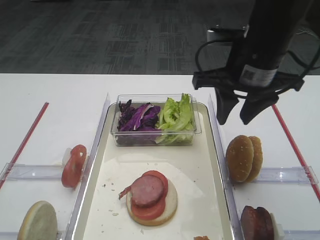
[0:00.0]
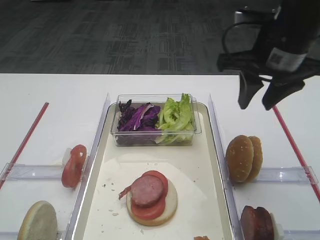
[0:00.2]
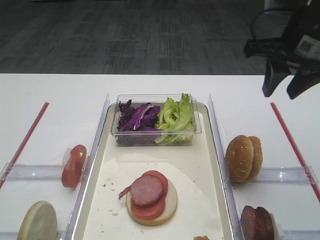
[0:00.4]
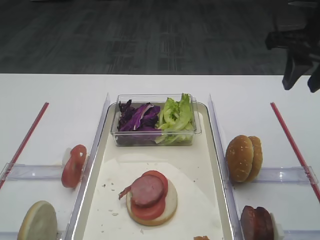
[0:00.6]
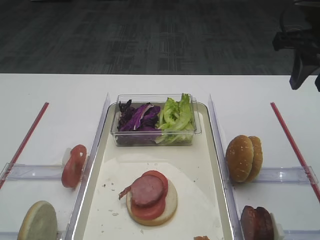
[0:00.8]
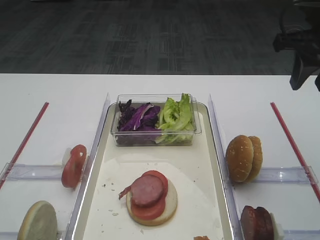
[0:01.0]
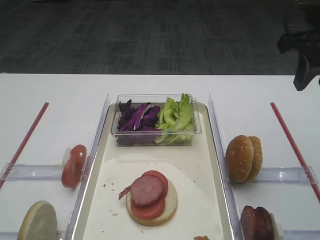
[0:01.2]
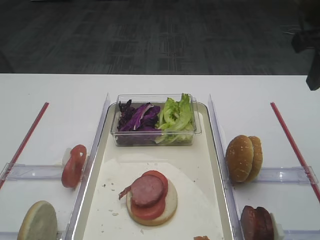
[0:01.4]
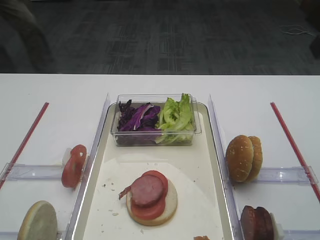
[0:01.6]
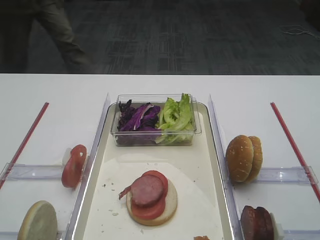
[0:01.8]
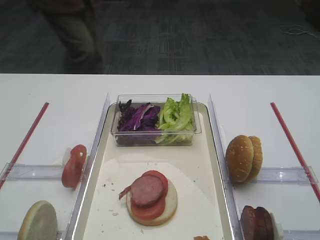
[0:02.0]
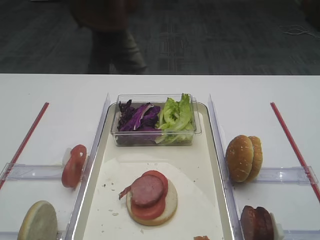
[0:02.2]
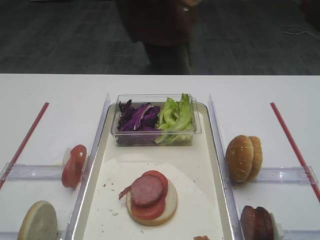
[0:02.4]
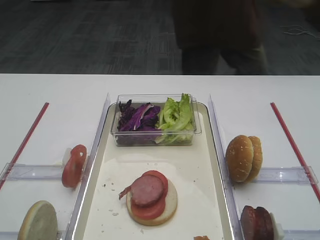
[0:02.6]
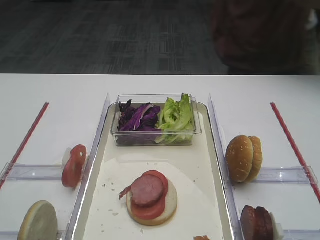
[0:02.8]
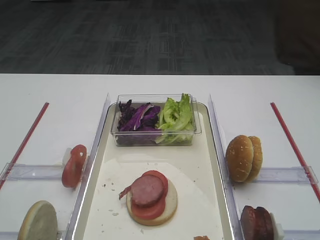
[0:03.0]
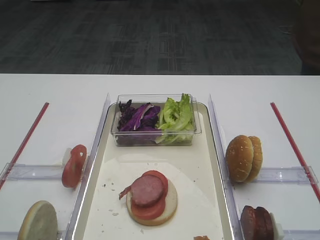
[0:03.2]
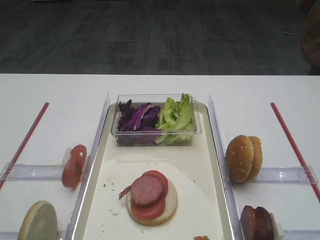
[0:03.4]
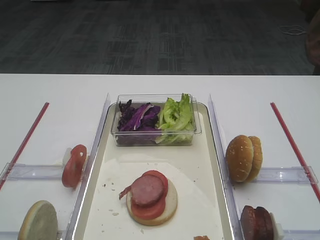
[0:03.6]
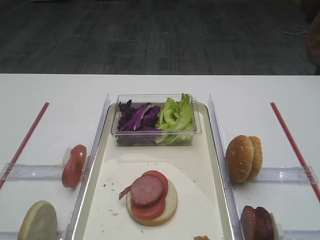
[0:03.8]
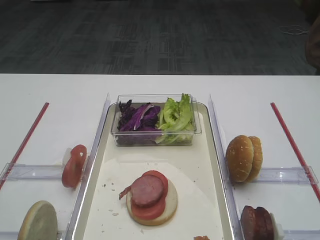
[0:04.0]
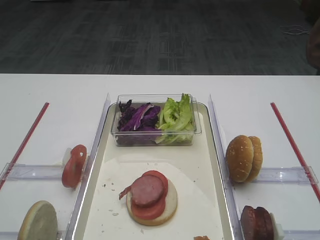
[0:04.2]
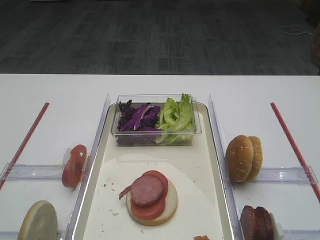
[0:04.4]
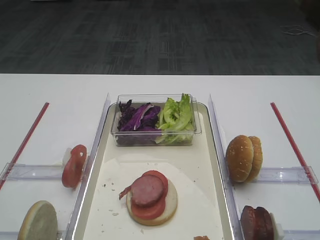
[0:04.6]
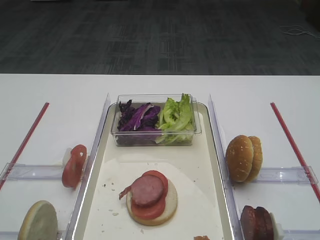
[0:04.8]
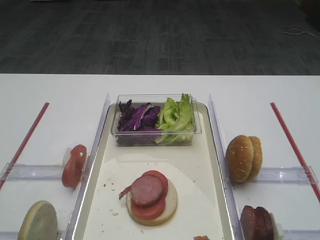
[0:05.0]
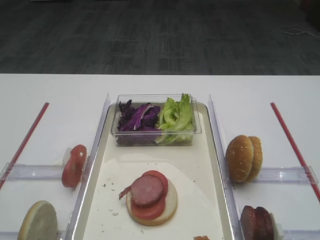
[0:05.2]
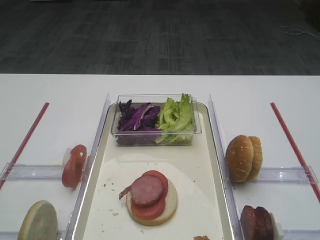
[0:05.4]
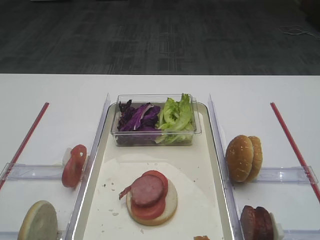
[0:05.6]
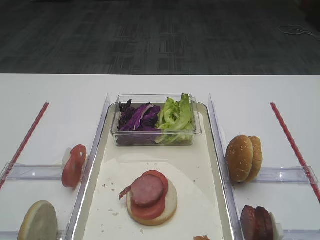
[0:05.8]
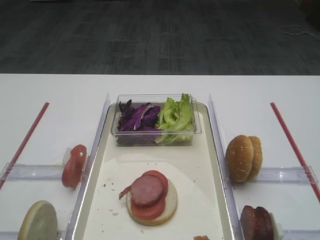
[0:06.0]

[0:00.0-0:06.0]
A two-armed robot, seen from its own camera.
0:00.0 to 0:01.6: The right gripper goes about 15 cm to the right, upward and backward.
0:01.6 to 0:03.0: The right gripper heads backward, covering about 20 cm.
0:04.4 to 0:06.0: Both grippers stay put.

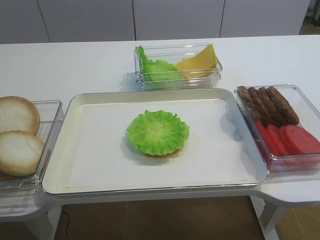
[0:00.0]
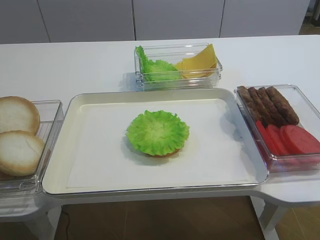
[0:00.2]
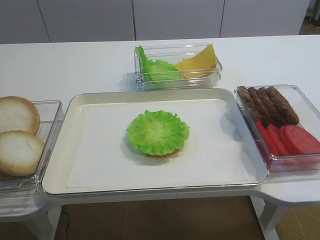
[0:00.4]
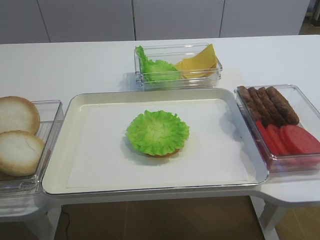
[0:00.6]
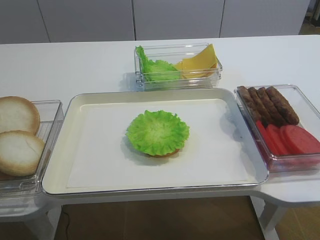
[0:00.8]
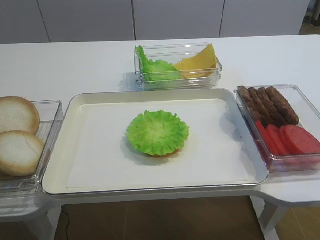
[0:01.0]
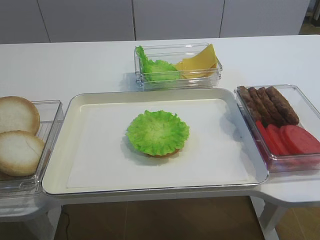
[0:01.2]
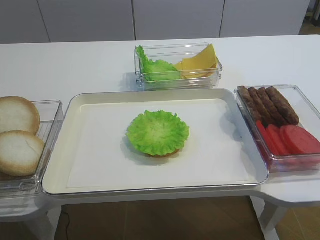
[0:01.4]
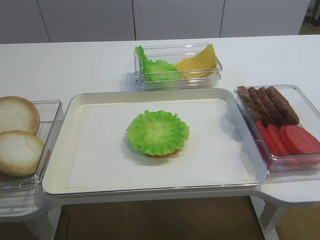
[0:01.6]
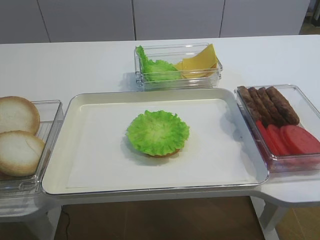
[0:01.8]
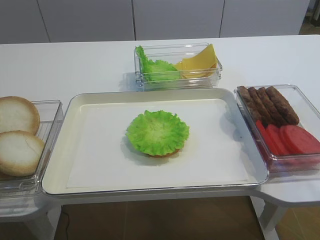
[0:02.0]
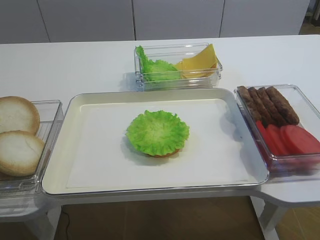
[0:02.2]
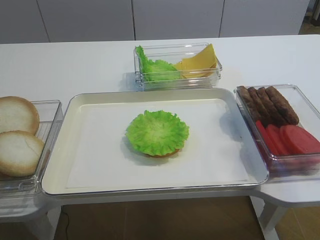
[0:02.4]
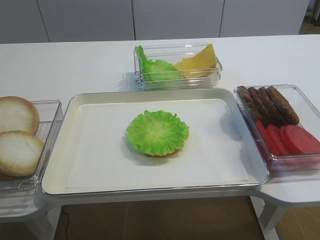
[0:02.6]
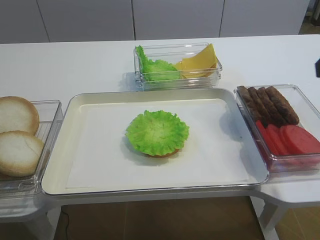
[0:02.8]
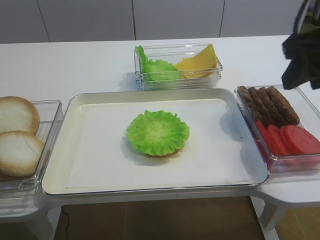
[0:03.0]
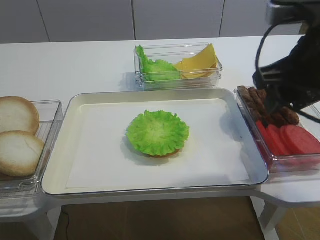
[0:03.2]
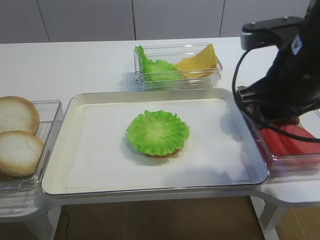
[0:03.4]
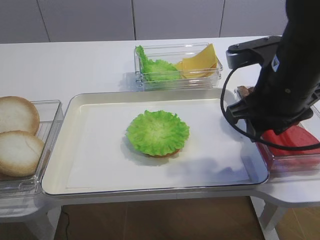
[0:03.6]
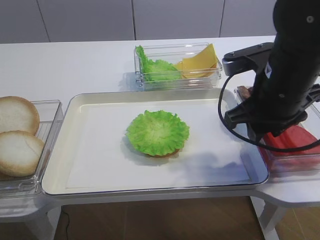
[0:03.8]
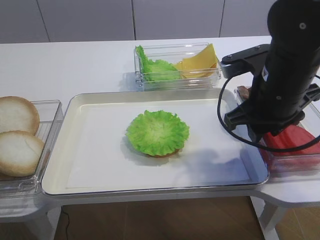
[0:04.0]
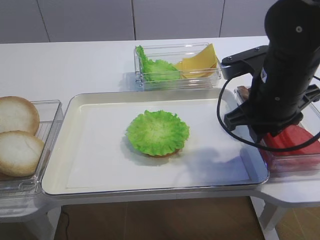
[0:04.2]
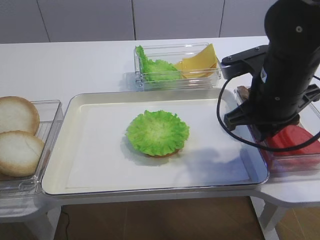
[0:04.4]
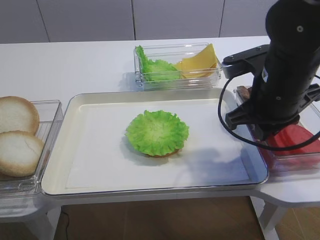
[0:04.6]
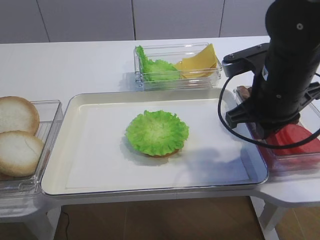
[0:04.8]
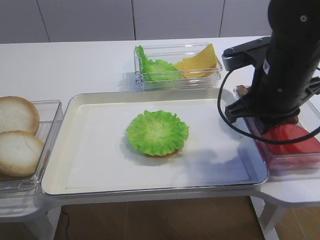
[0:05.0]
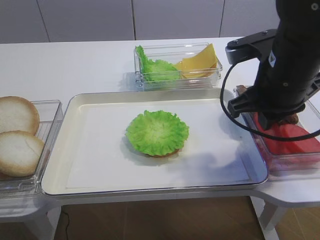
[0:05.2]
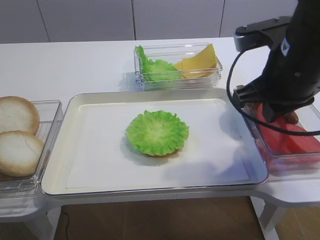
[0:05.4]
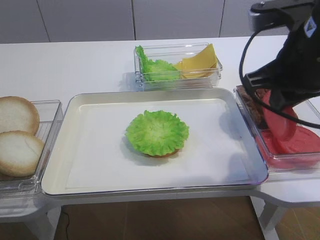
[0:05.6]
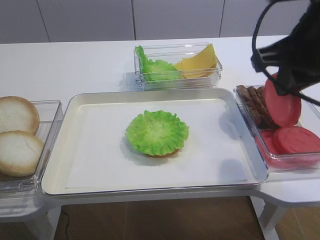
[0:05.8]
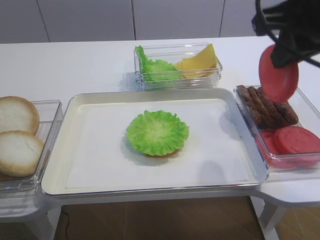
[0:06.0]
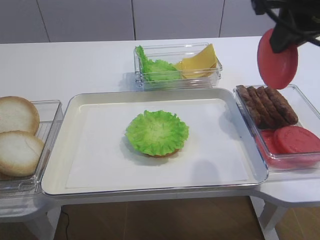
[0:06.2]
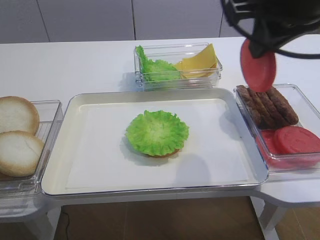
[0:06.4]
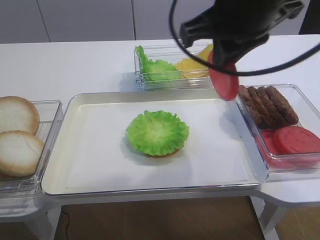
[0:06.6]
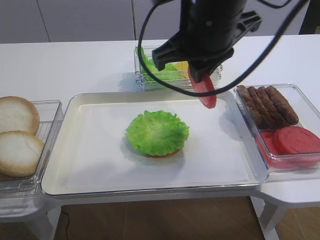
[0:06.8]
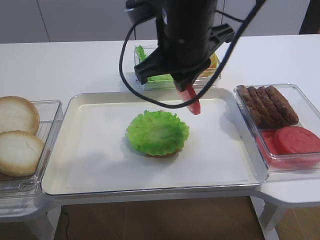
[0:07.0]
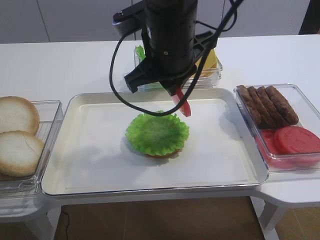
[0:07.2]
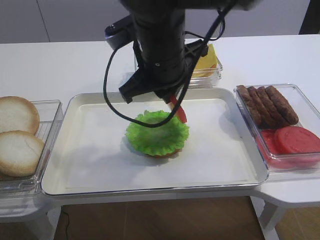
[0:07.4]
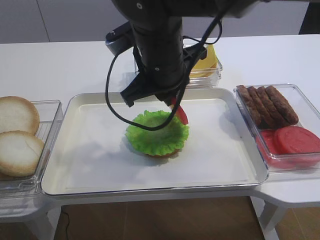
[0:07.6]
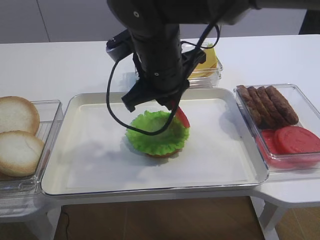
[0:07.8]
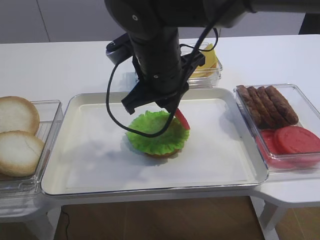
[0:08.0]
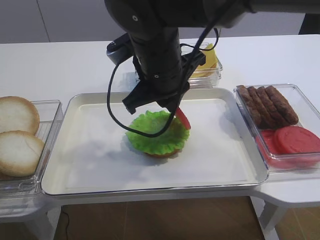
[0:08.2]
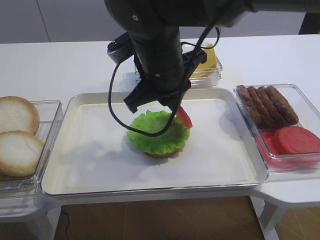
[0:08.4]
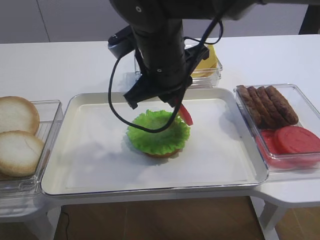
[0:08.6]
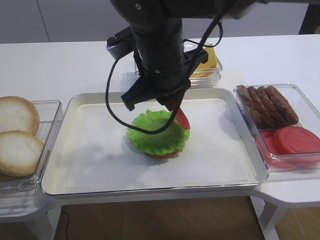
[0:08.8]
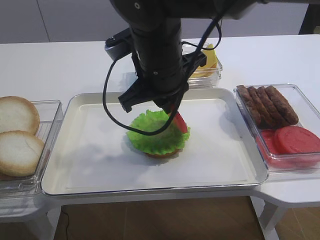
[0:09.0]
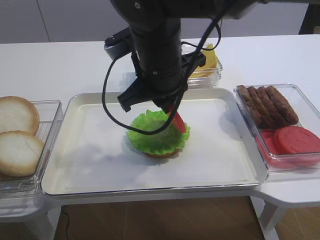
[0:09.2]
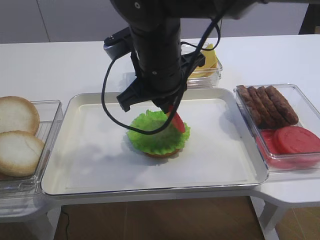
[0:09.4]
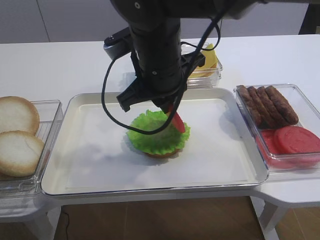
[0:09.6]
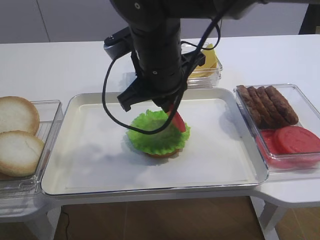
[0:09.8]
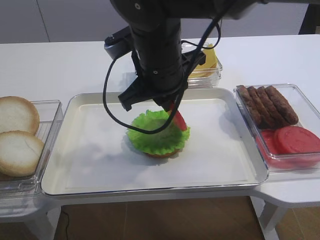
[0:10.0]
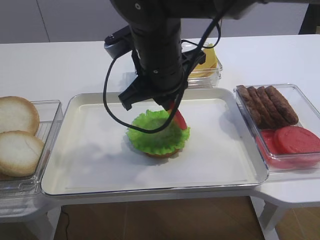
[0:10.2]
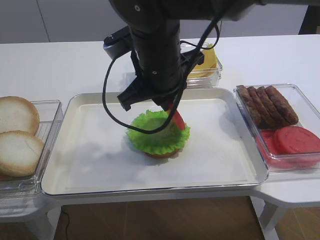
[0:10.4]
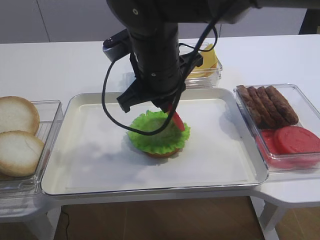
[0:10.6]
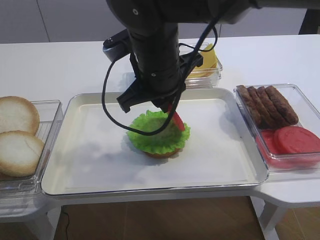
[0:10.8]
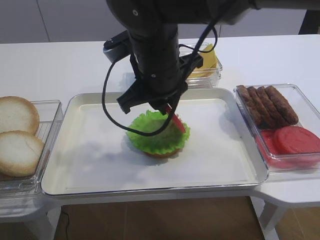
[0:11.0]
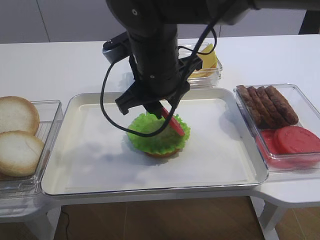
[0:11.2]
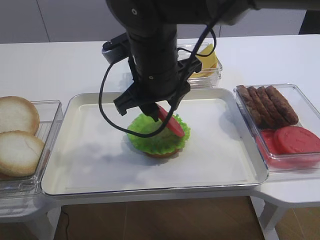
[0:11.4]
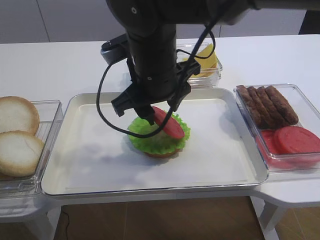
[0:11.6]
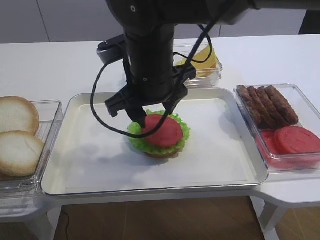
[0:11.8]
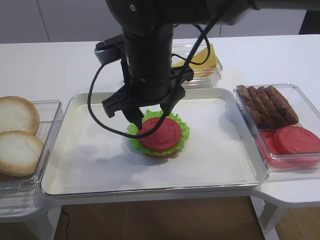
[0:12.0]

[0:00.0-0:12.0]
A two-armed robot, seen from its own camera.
Step, 0:00.0 to 0:05.4: Pick up the tomato slice with the right gripper.
Step, 0:05.8 to 0:12.0: Place the tomato slice on the lettuce leaf with the right gripper.
0:01.6 to 0:03.0: The right gripper shifts approximately 25 cm forward.
0:03.0 to 0:04.4: The right gripper heads downward and to the left, covering about 10 cm, and closes up.
0:04.4 to 0:06.0: The right gripper heads upward, covering approximately 15 cm.
0:06.0 to 0:07.6: The right gripper is displaced to the left, downward and forward by approximately 20 cm.
0:07.6 to 0:10.4: Both grippers stay put.
0:10.4 to 0:12.0: The right gripper opens up.

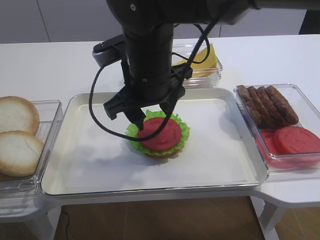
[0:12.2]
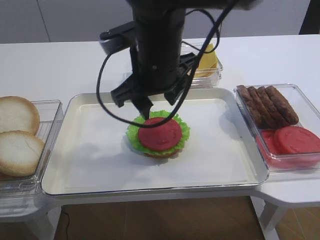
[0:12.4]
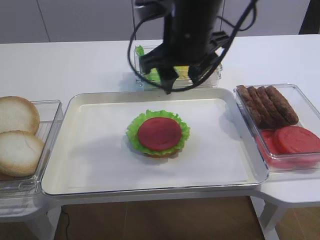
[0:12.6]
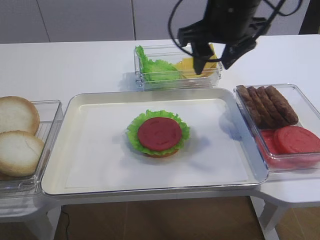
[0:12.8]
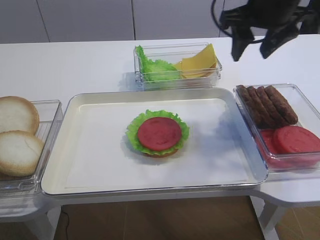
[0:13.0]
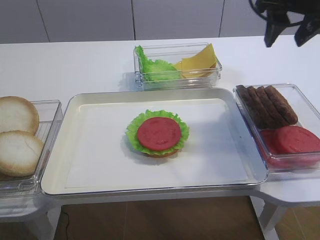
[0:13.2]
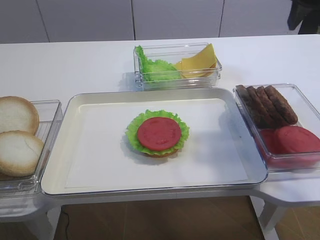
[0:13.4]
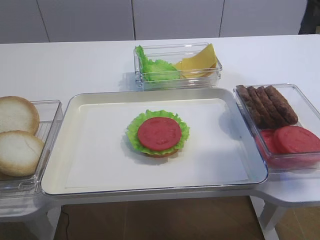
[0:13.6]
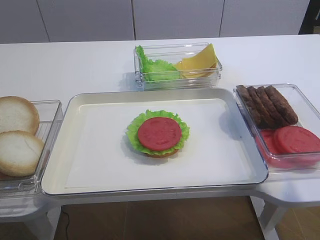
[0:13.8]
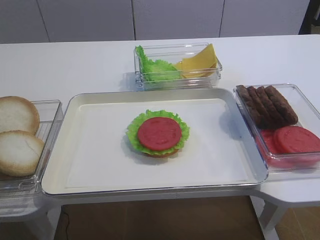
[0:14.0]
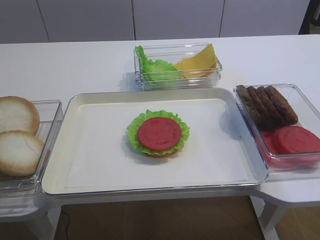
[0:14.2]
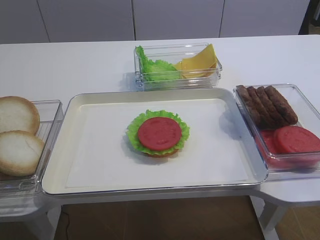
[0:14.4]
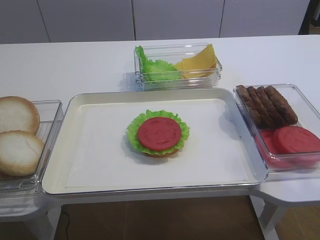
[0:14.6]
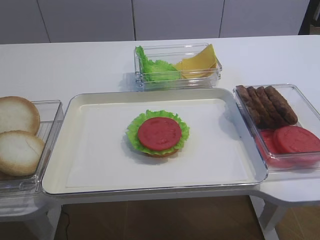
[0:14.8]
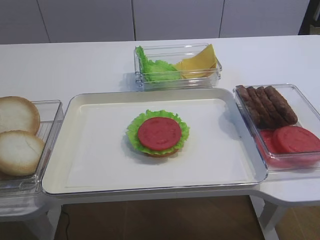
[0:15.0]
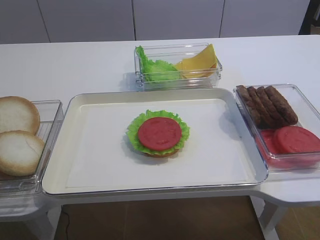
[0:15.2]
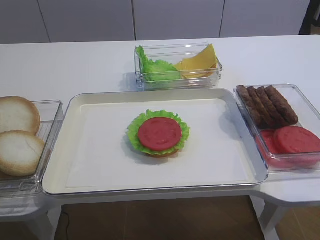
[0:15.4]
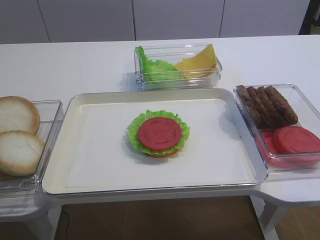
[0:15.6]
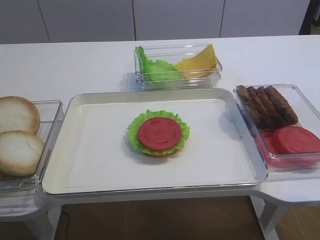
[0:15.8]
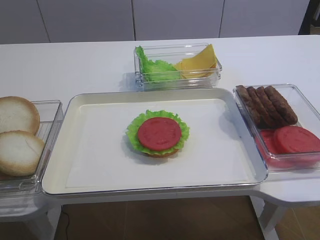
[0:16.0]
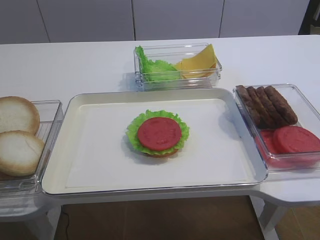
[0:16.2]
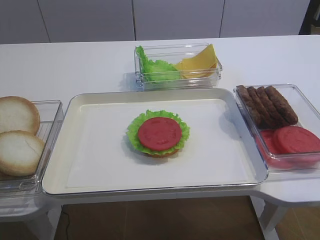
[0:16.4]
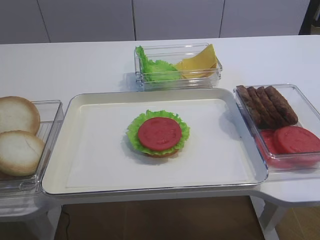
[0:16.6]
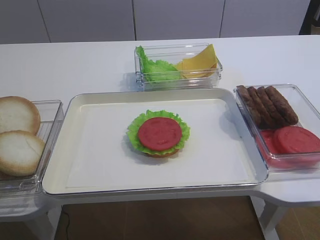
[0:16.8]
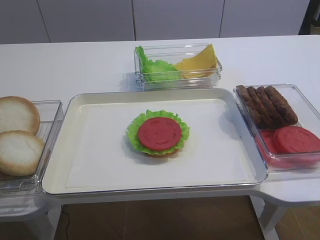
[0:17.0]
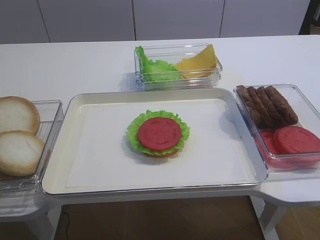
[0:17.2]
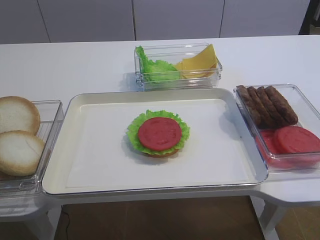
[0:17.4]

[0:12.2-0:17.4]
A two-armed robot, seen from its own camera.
0:12.2 to 0:14.0: The right gripper travels to the right and upward by roughly 30 cm.
0:15.6 to 0:17.4: The two grippers keep their place.
